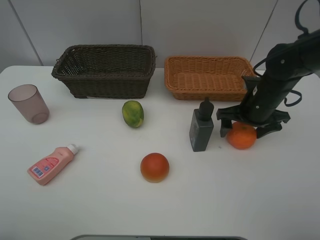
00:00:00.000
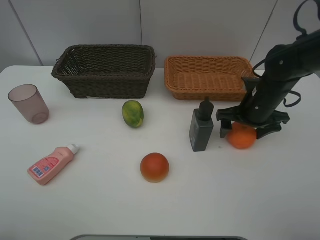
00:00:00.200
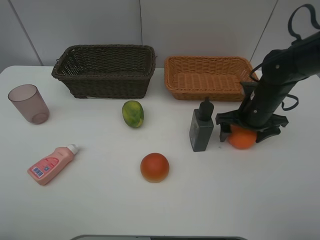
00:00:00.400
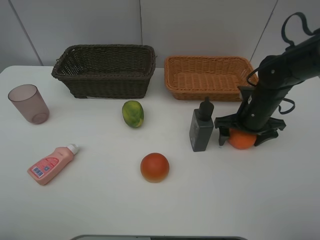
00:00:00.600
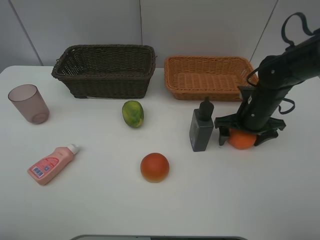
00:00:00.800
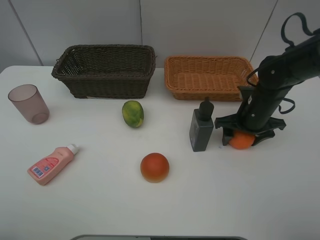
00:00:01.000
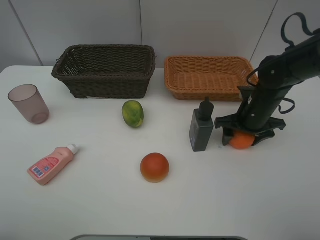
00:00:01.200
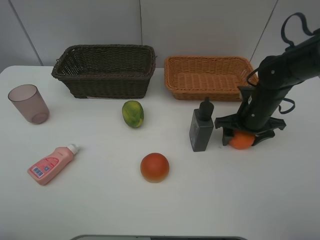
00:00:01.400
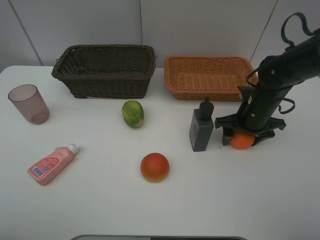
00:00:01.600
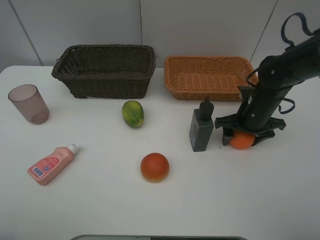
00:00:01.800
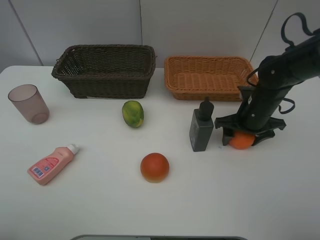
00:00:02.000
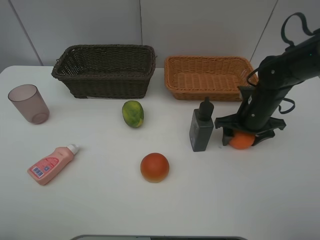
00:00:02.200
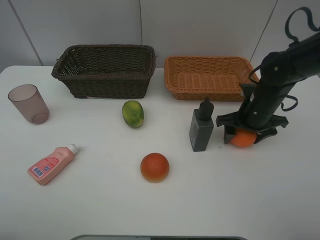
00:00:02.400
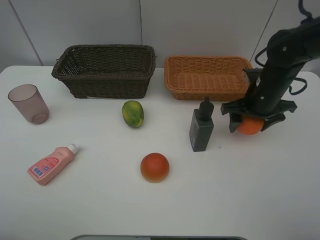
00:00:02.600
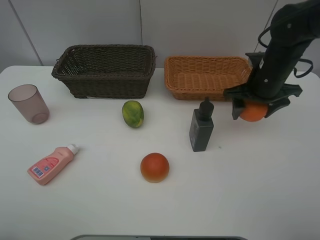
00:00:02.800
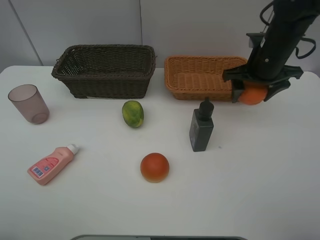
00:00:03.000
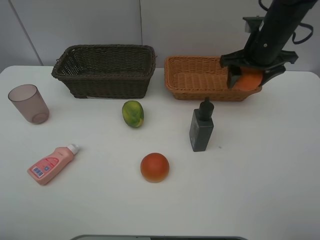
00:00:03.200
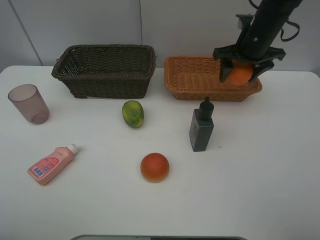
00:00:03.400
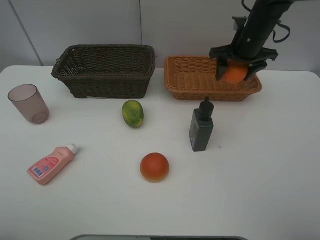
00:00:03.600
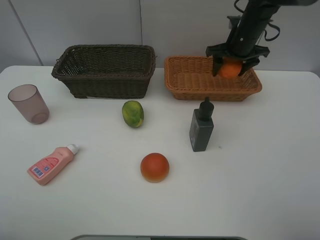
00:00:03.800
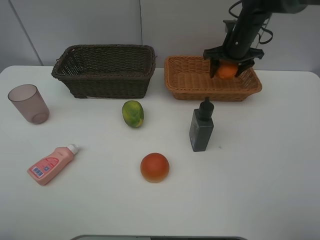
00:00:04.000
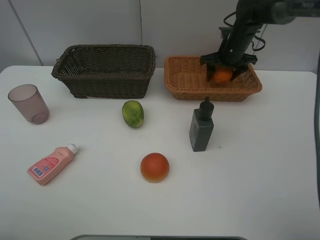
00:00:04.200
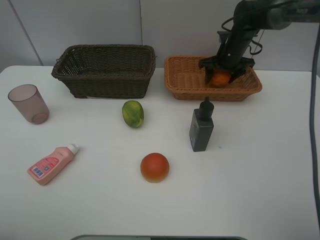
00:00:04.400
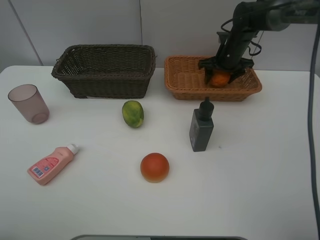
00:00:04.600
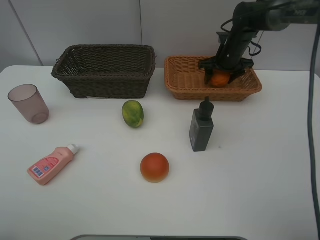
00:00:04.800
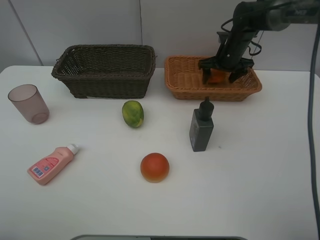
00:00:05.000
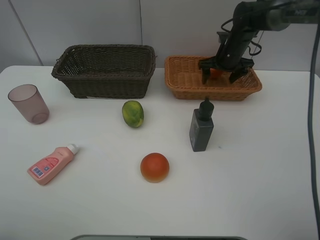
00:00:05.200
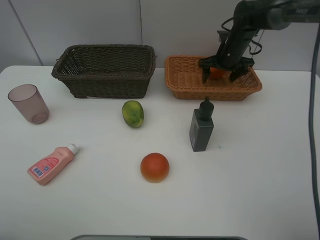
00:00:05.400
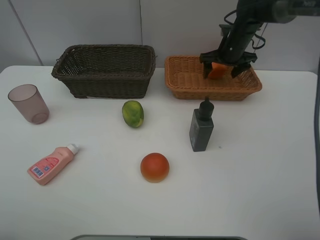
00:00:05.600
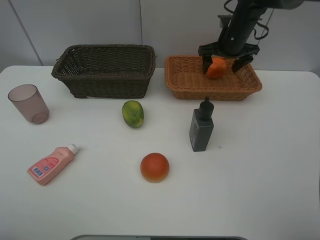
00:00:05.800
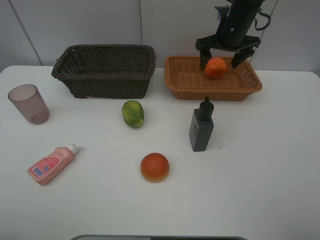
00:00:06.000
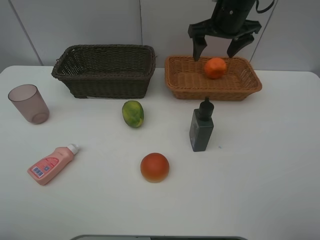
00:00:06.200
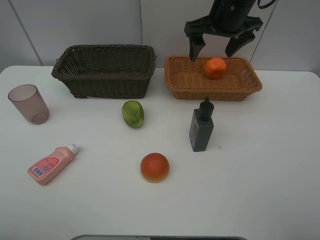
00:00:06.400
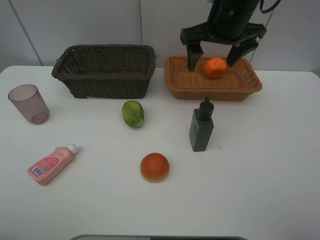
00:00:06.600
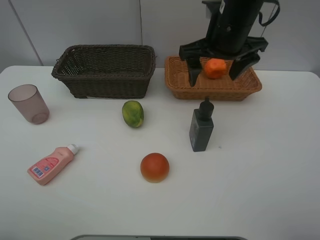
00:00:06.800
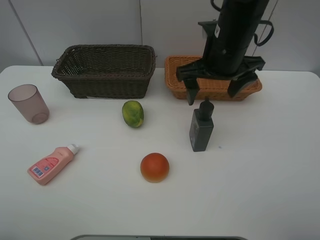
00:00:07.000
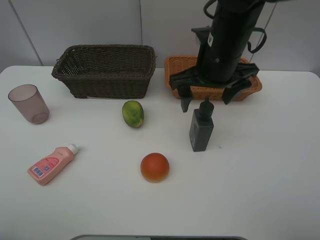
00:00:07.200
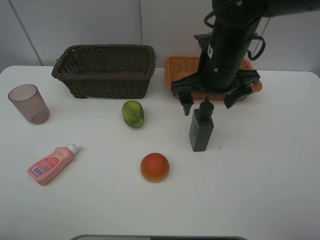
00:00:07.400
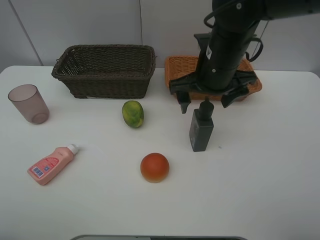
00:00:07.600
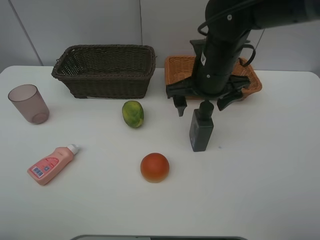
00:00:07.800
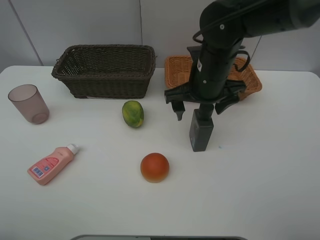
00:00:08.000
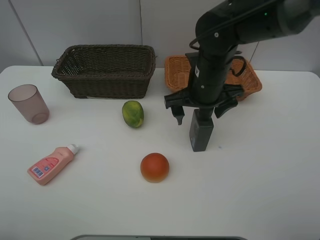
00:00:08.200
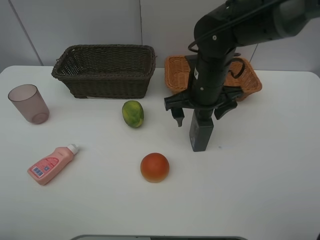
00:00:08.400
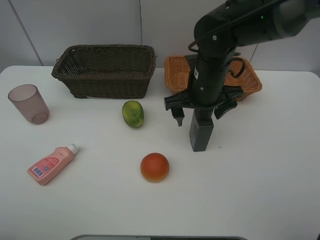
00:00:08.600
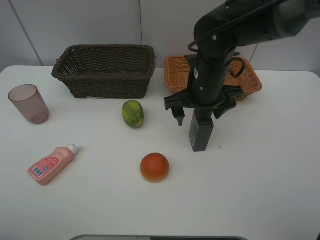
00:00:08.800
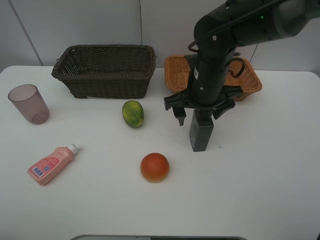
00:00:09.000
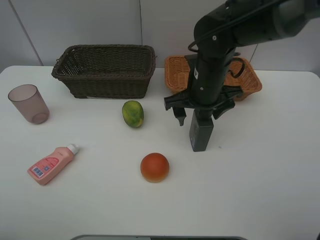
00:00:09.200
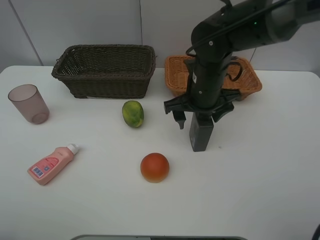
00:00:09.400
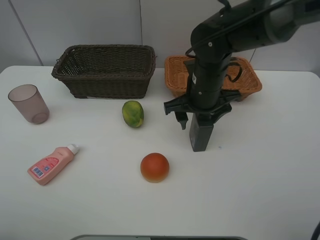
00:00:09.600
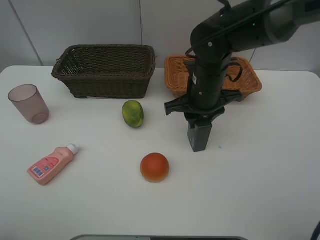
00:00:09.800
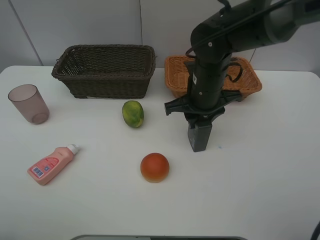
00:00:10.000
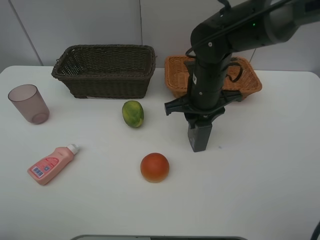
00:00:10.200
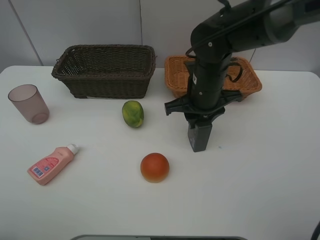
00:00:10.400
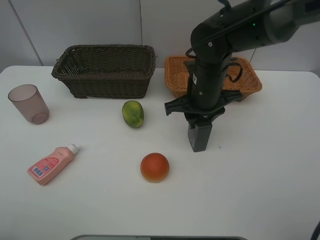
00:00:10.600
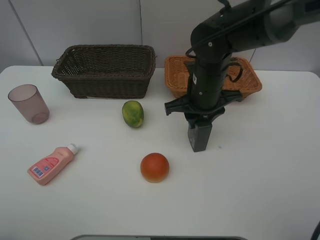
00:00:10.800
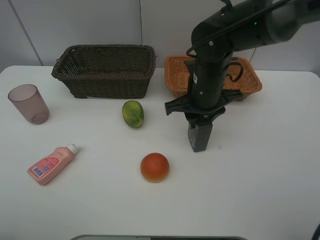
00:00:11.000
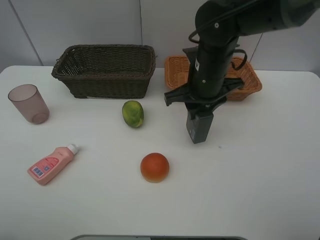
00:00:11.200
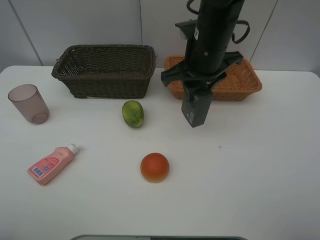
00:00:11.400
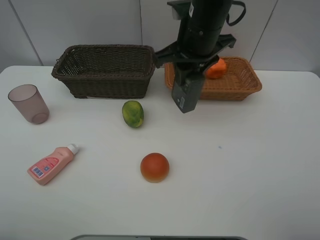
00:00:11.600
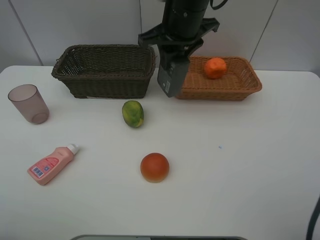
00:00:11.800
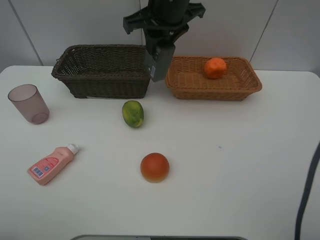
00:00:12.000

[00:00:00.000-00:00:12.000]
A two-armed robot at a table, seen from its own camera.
Task of the whole recording: place multiple objects separately in different baskets.
00:00:00.000 to 00:00:01.600: The grippers stay close to where they were, moving slightly.
00:00:01.600 to 00:00:03.000: The right gripper goes some 10 cm upward.
00:00:03.000 to 00:00:04.400: The right gripper shifts approximately 15 cm forward and downward.
00:00:04.400 to 00:00:06.000: The right gripper shifts approximately 10 cm upward.
00:00:06.000 to 00:00:07.600: The right gripper is displaced backward and to the left by about 20 cm.
00:00:07.600 to 00:00:09.000: The grippers make only small movements.
00:00:09.000 to 00:00:10.400: The right gripper closes.
00:00:10.400 to 00:00:12.000: The right gripper is displaced upward, to the left and forward by some 15 cm.

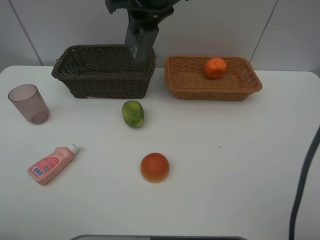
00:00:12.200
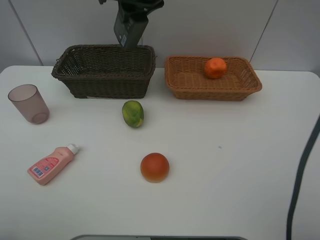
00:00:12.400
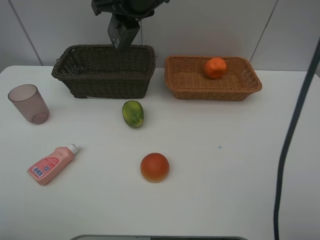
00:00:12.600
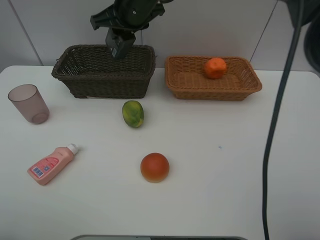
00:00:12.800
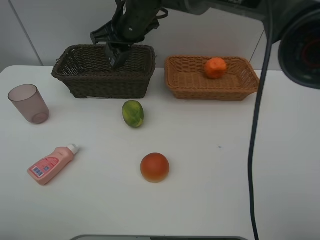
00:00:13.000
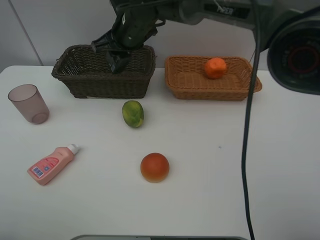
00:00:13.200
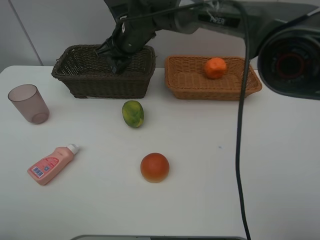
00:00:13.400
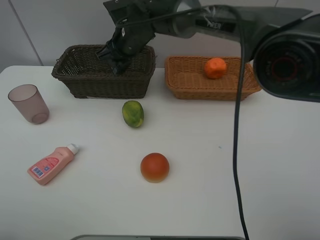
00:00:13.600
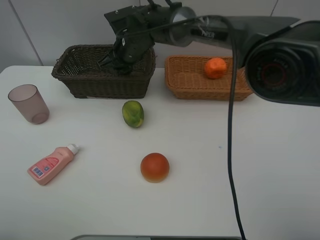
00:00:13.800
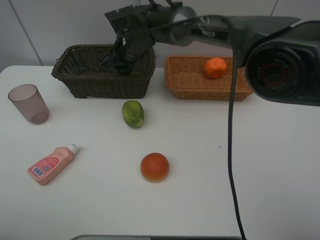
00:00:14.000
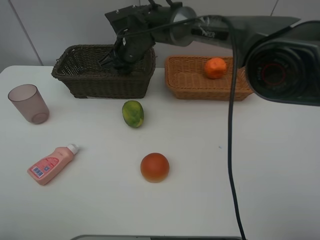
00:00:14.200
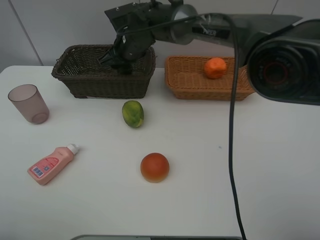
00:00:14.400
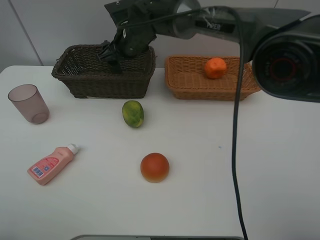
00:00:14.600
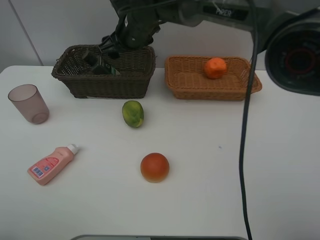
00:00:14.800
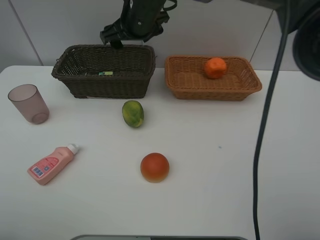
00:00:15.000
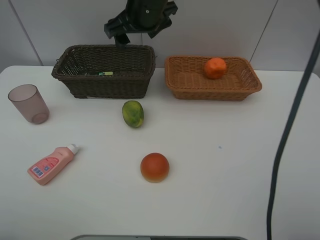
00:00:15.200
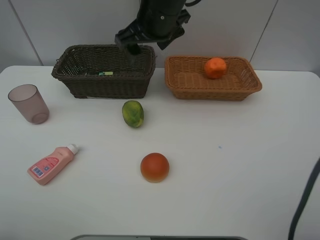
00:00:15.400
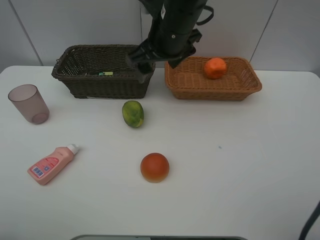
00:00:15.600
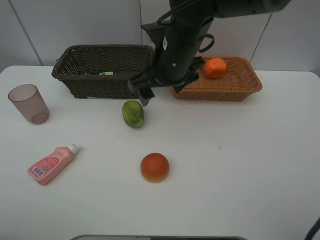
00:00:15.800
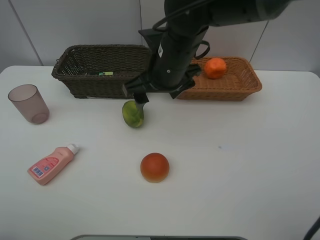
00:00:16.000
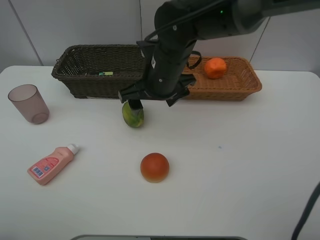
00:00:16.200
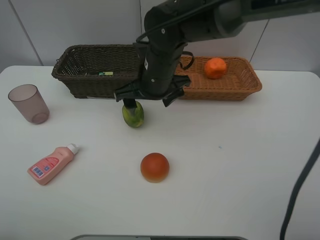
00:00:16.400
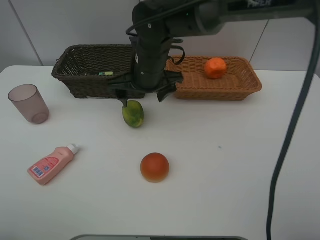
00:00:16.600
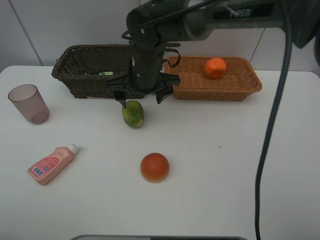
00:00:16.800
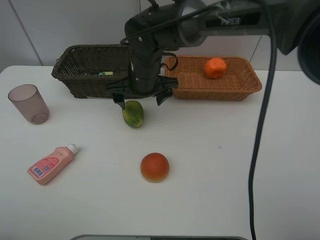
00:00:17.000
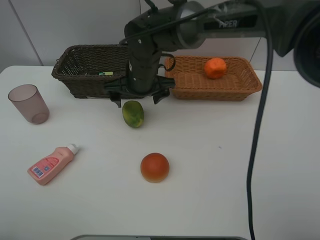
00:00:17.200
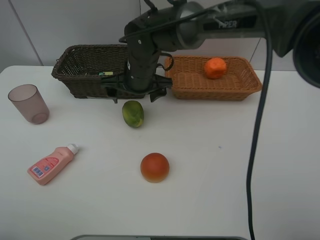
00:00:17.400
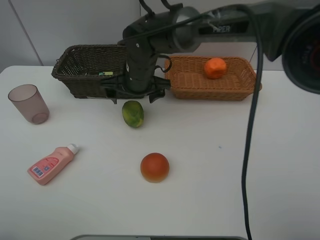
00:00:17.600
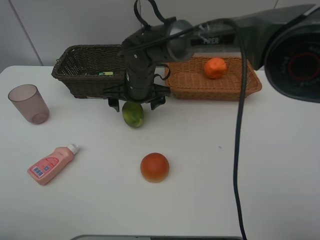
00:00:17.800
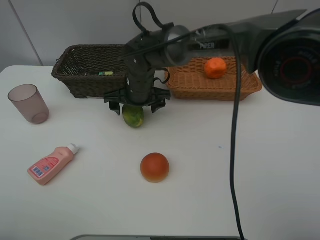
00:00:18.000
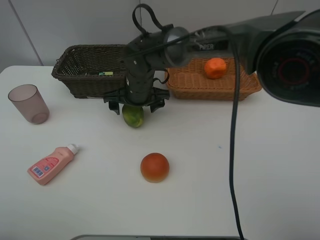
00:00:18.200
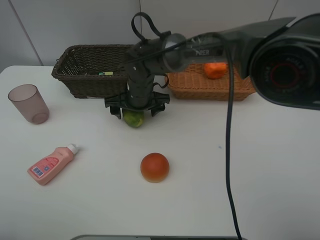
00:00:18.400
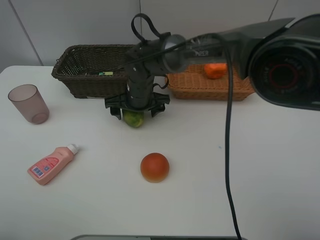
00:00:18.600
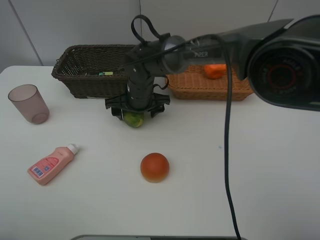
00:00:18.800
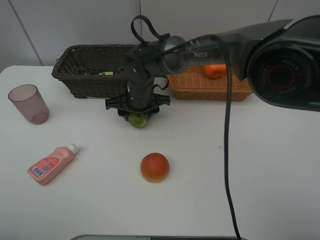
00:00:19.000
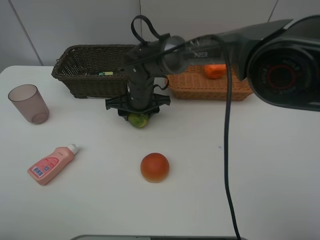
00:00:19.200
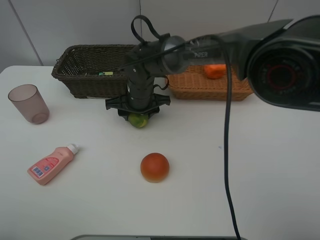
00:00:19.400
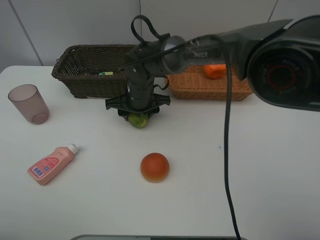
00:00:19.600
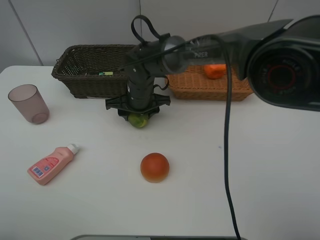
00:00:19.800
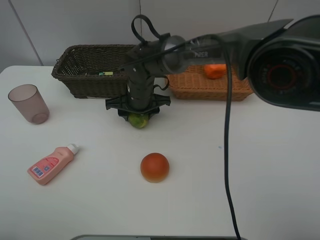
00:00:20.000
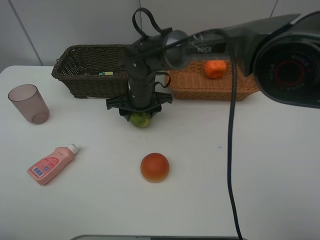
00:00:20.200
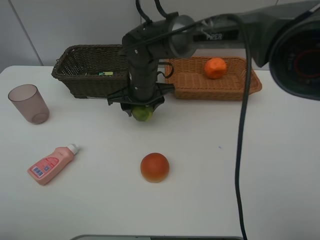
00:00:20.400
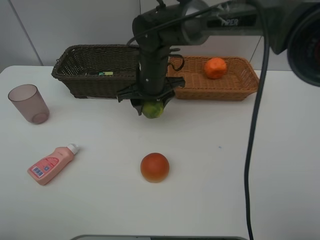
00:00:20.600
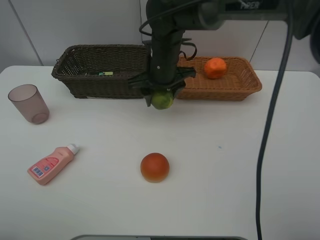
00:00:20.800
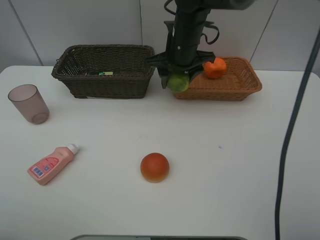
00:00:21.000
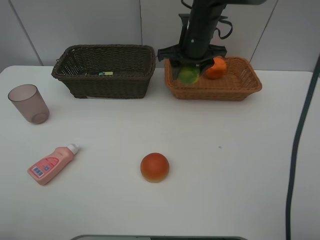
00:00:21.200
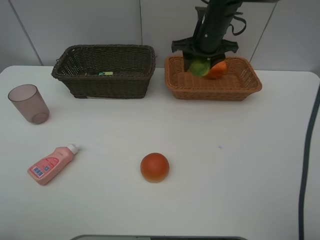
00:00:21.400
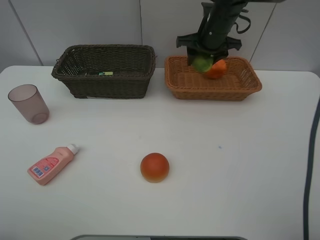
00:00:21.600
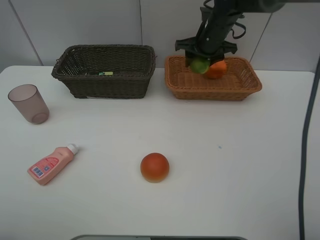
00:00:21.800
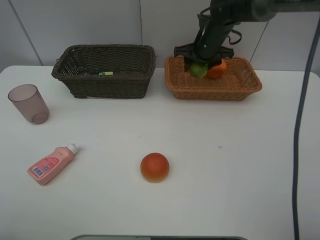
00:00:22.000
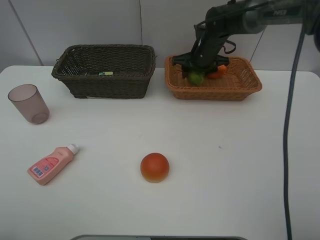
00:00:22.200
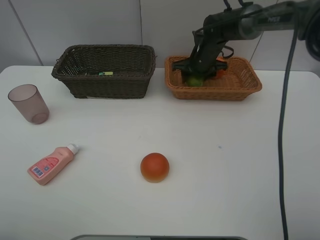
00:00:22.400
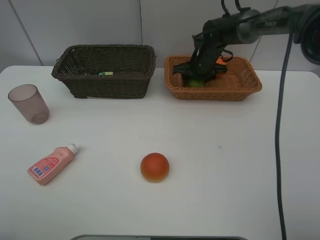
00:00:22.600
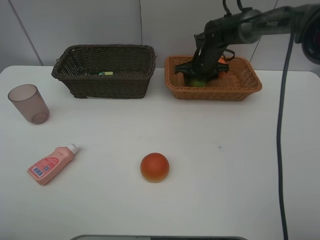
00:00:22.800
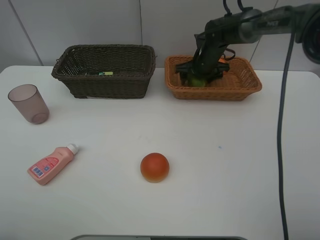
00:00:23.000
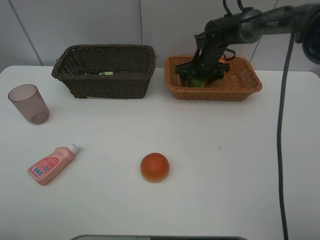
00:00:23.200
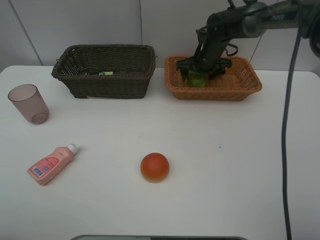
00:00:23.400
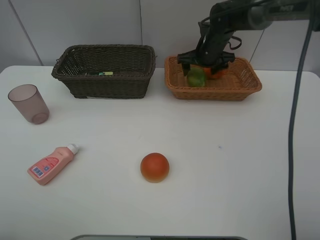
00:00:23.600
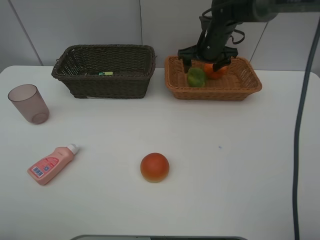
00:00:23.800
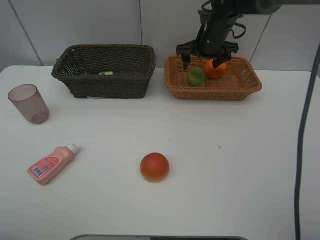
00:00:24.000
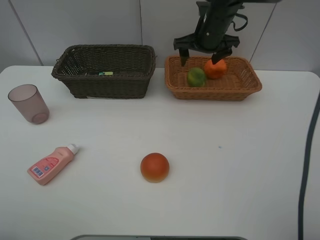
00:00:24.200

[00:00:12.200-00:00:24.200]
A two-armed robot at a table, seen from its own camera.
Task of the whole recording: place multiple objects separately in different baskets.
00:00:12.200 to 00:00:13.800: The right gripper heads downward, covering approximately 15 cm.
00:00:13.800 to 00:00:15.200: The right gripper shifts roughly 10 cm upward and backward, and opens.
00:00:15.200 to 00:00:16.600: The right gripper travels downward by some 10 cm.
00:00:16.600 to 00:00:18.200: The right gripper goes some 5 cm downward.
00:00:18.200 to 00:00:19.800: The right gripper closes up.
00:00:19.800 to 00:00:21.200: The right gripper moves to the right, upward and forward, approximately 20 cm.
00:00:21.200 to 00:00:22.600: The right gripper moves downward and forward, roughly 10 cm.
00:00:22.600 to 00:00:24.200: The right gripper moves upward, approximately 10 cm, and opens up.
